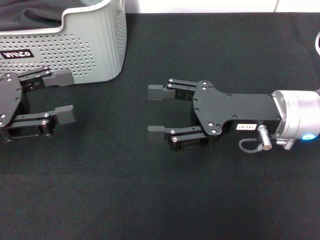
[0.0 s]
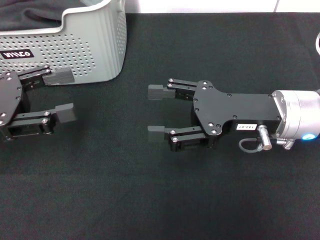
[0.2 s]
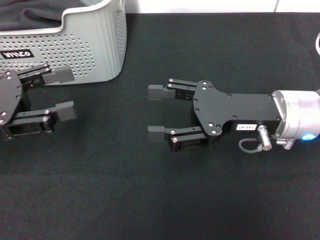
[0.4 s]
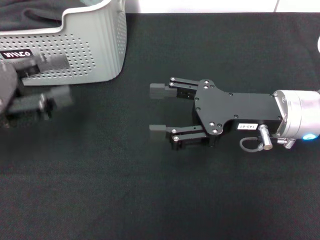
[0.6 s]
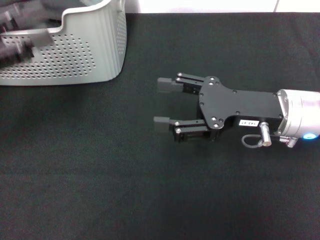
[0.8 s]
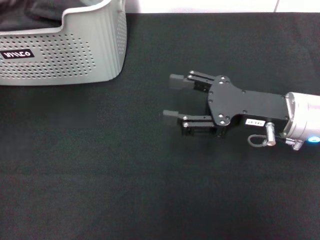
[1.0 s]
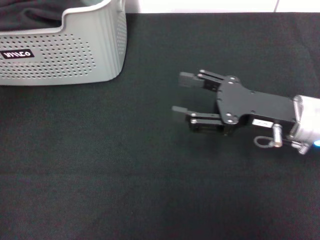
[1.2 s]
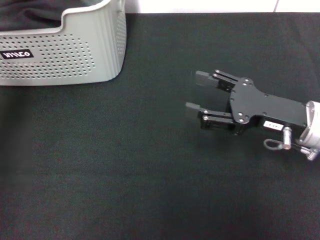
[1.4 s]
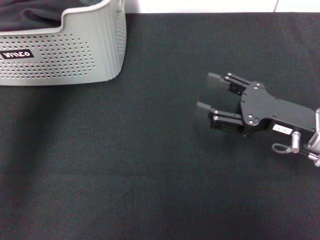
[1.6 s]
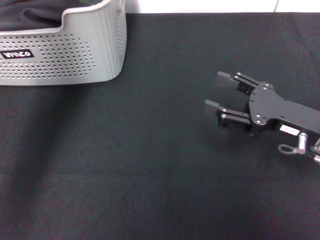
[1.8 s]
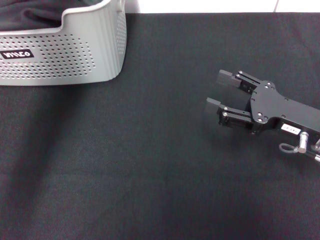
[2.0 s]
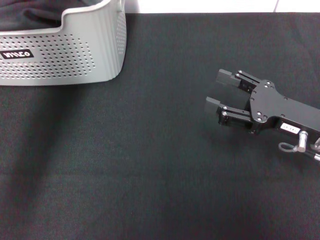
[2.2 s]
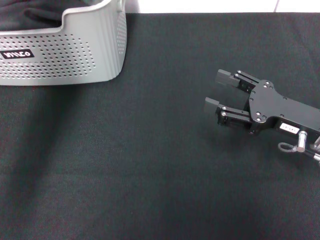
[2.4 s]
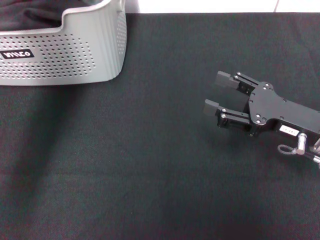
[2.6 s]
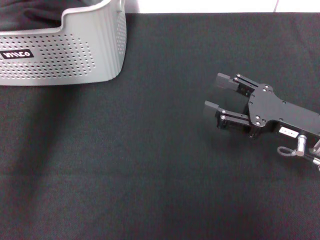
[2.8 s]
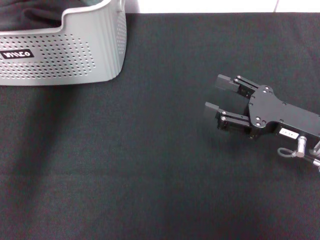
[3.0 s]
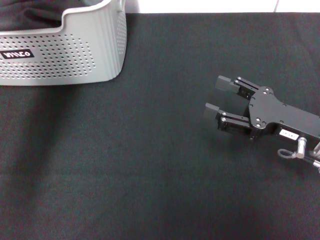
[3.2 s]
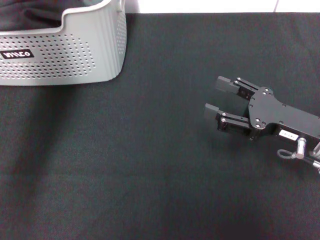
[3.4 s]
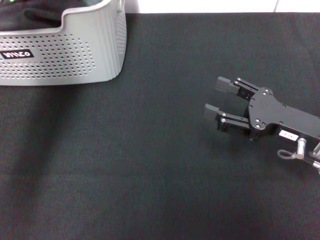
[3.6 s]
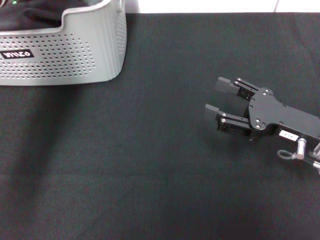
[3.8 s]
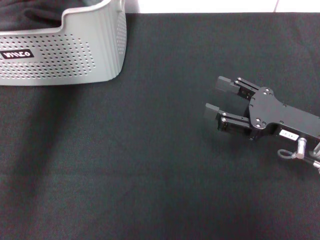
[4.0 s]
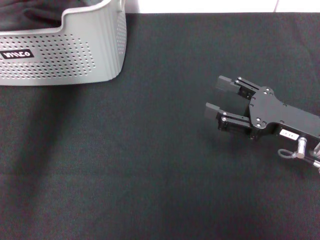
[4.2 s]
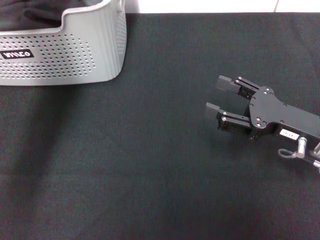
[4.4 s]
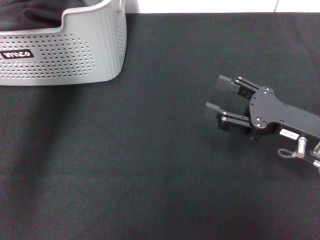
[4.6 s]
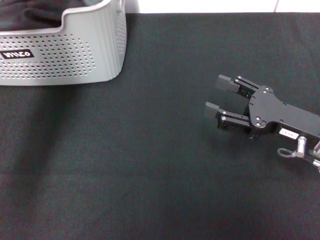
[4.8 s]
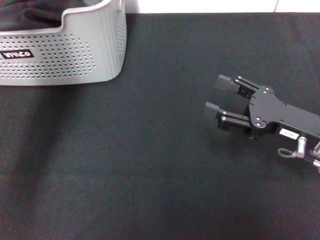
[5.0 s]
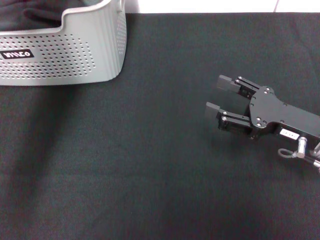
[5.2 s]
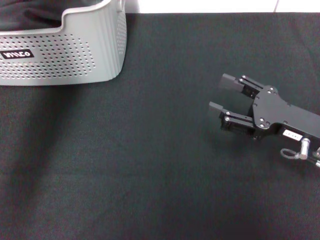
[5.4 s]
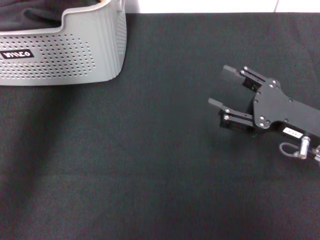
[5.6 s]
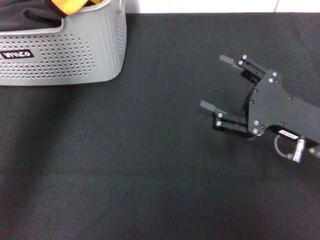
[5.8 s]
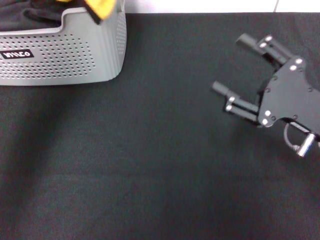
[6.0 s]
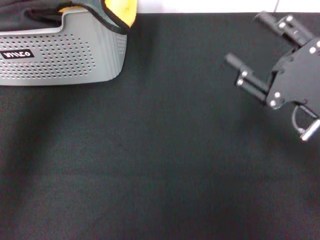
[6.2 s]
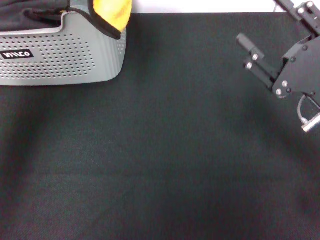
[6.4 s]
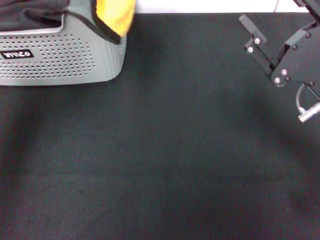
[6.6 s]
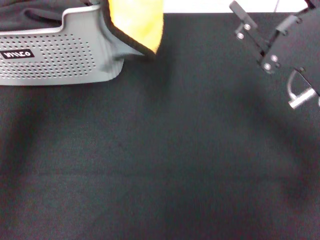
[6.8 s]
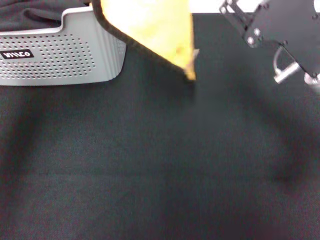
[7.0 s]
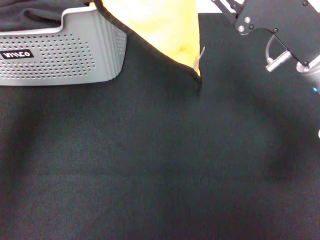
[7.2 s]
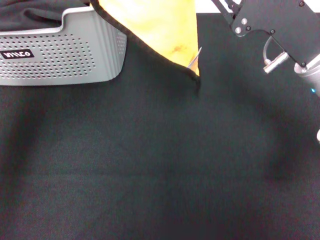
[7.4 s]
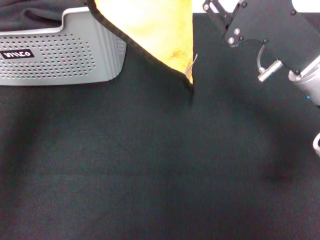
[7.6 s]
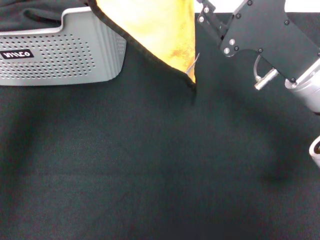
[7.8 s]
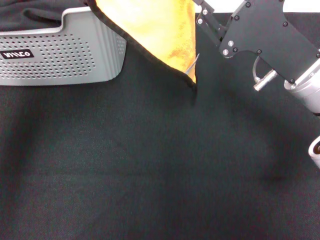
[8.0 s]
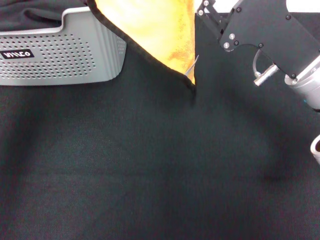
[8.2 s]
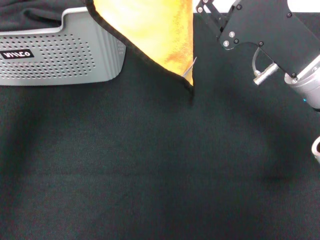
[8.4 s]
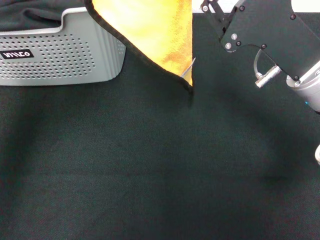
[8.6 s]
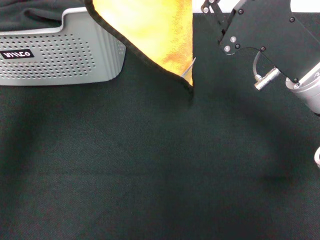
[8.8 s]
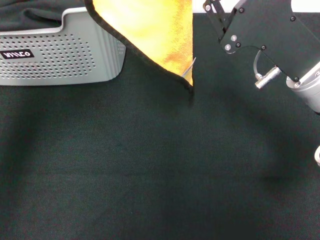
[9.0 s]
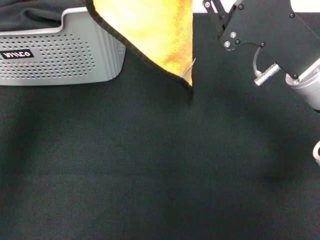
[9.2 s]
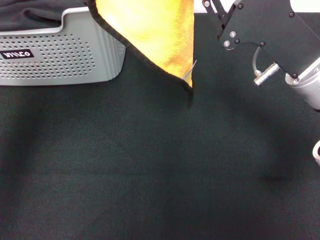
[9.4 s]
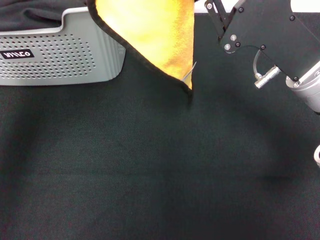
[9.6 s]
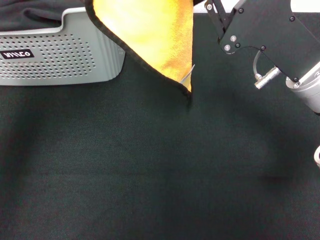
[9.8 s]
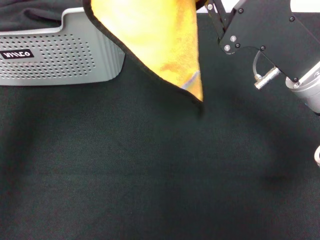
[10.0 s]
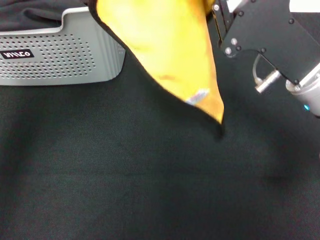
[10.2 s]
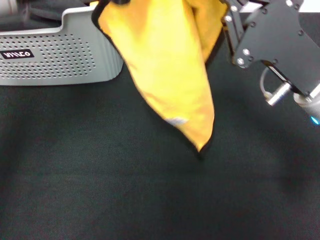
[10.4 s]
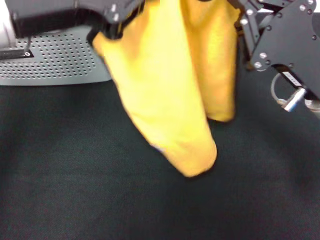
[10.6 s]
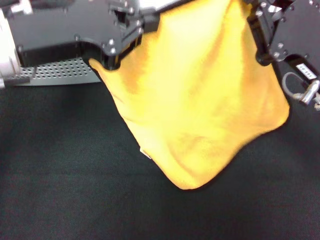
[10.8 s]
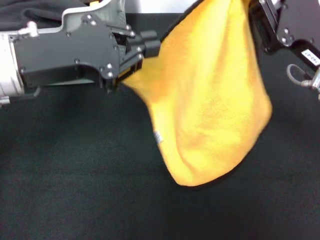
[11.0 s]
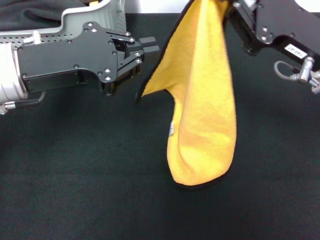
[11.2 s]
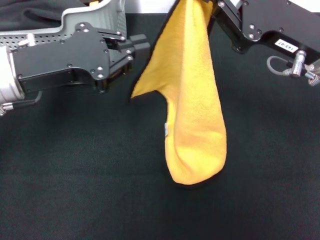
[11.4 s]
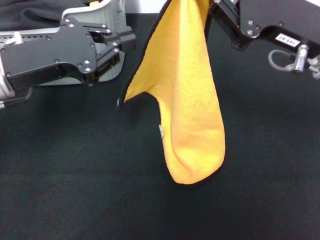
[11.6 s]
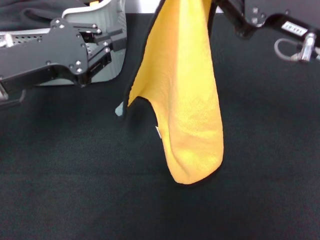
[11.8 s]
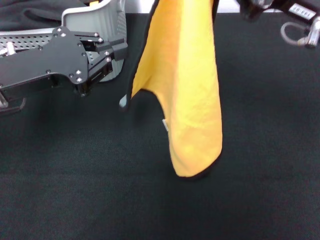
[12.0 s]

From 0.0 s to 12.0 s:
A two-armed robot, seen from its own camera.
Task of the whole recording: pick up the towel from the storage box and lay it flat on the black tablecloth.
Step, from 0.0 s to 5.0 s: Pick up a towel with the left gripper.
Step, from 5.4 s to 10.4 s: Spread the towel flat with the left gripper.
From 0.0 s to 1.6 s: The left gripper moves upward, to the right and forward, about 20 cm. The right gripper heads to the right, covering some 5 cm.
From 1.6 s to 3.0 s: The left gripper shifts by some 5 cm.
From 4.4 s to 6.0 s: The left gripper shifts approximately 15 cm upward and backward, and closes its fingers.
From 6.0 s to 7.6 s: The right gripper goes some 5 cm to the left and upward.
From 7.6 s to 9.0 s: Neither gripper changes place.
From 10.4 s to 12.0 s: The right gripper goes some 10 cm upward. The left gripper moves downward and to the left, about 15 cm.

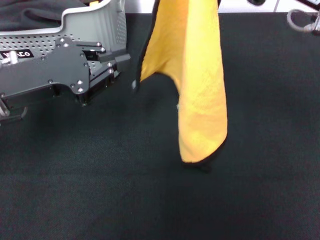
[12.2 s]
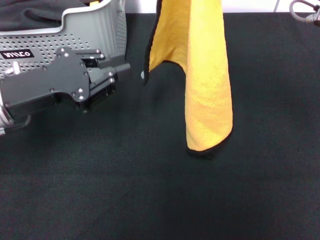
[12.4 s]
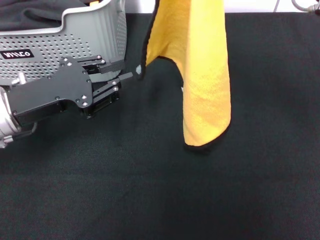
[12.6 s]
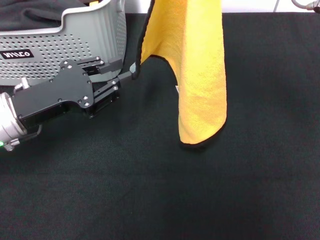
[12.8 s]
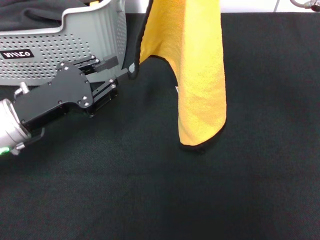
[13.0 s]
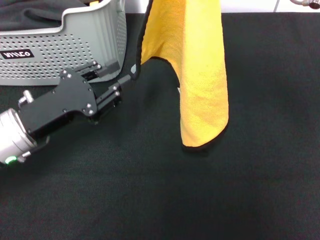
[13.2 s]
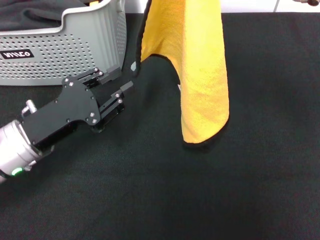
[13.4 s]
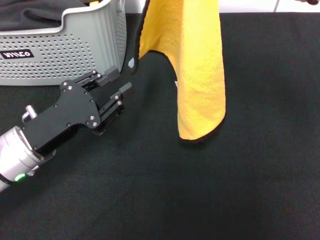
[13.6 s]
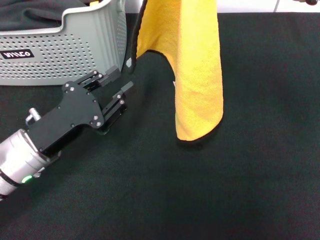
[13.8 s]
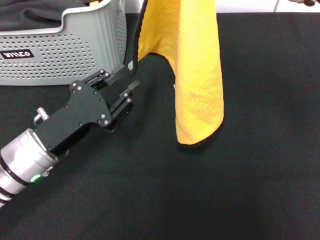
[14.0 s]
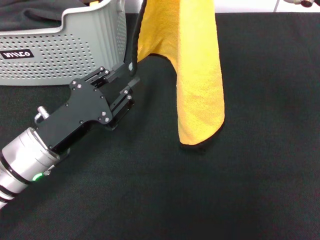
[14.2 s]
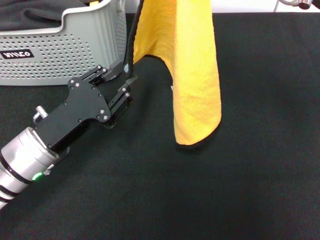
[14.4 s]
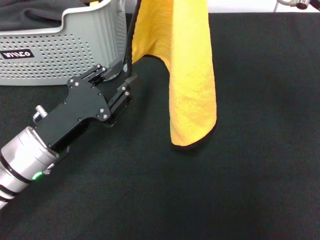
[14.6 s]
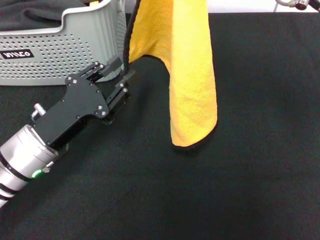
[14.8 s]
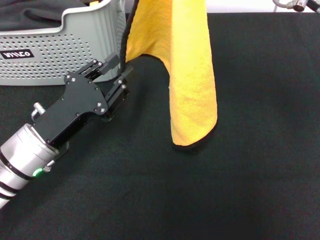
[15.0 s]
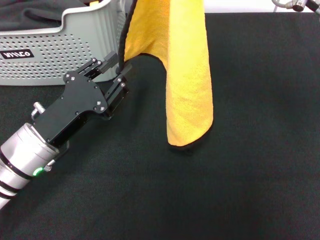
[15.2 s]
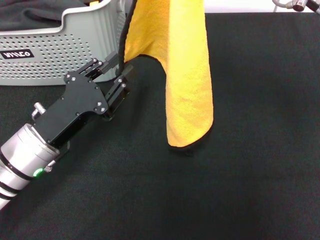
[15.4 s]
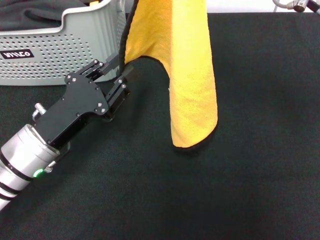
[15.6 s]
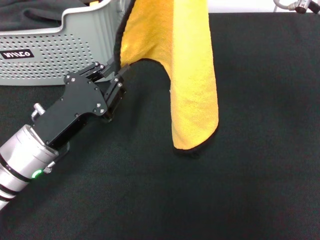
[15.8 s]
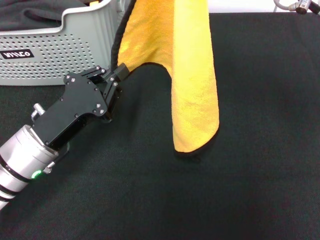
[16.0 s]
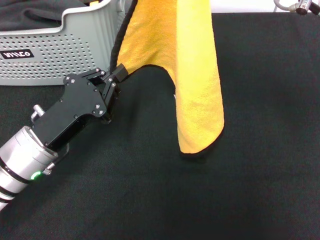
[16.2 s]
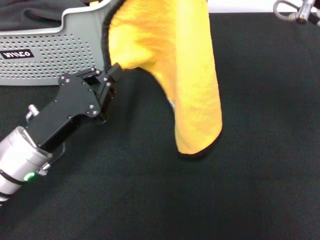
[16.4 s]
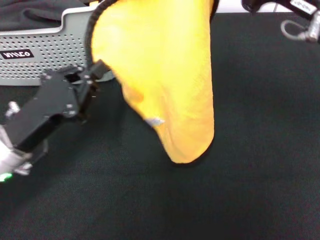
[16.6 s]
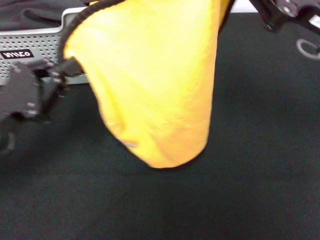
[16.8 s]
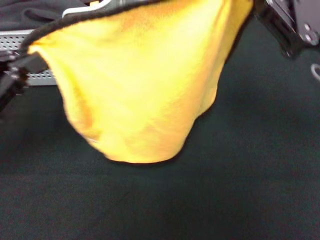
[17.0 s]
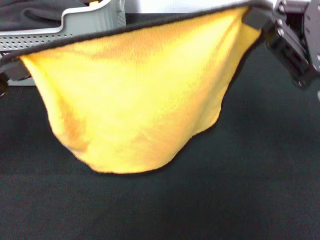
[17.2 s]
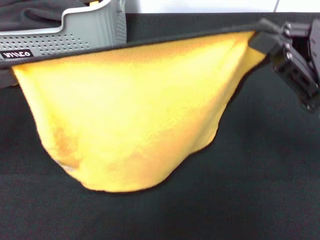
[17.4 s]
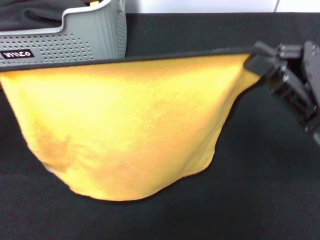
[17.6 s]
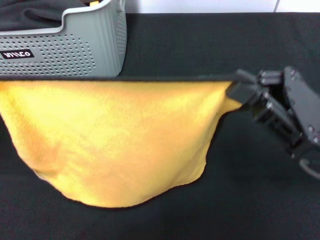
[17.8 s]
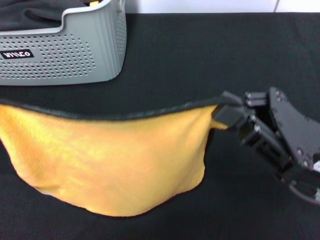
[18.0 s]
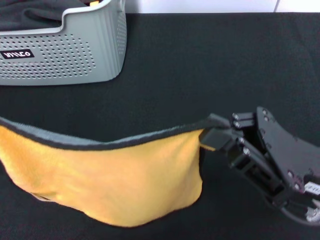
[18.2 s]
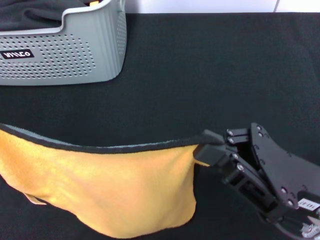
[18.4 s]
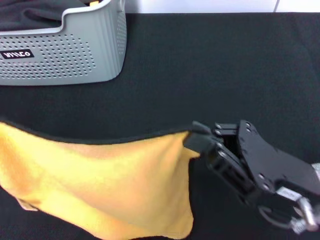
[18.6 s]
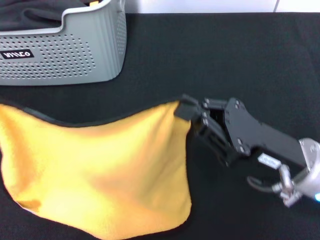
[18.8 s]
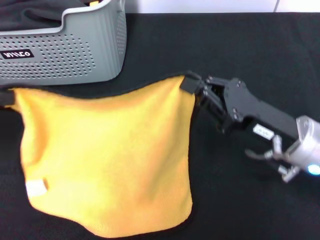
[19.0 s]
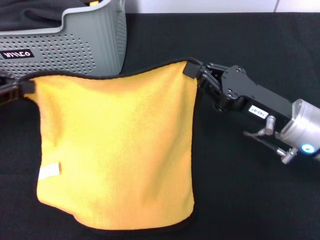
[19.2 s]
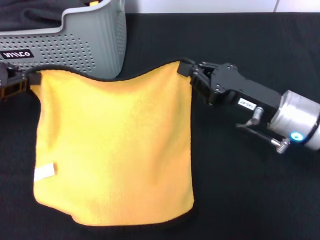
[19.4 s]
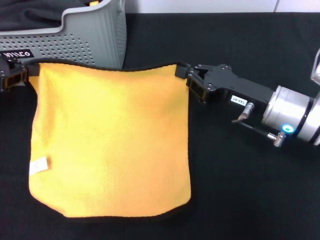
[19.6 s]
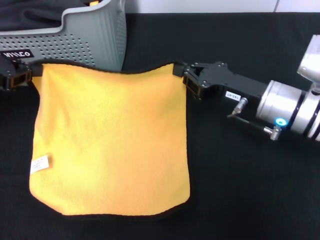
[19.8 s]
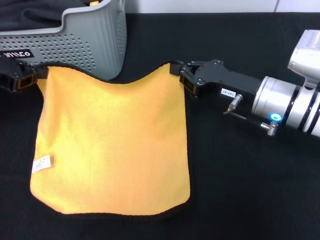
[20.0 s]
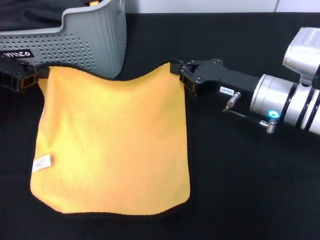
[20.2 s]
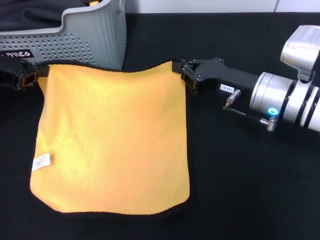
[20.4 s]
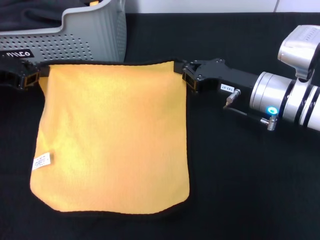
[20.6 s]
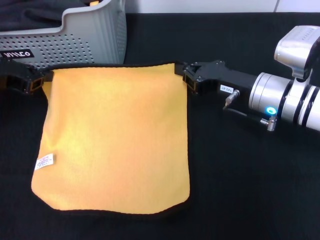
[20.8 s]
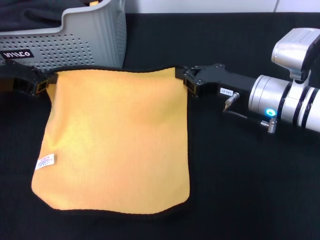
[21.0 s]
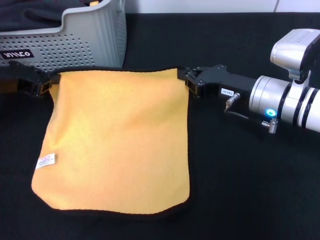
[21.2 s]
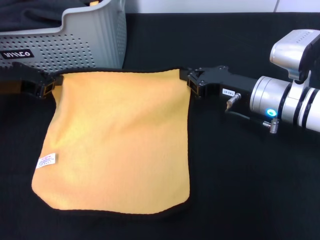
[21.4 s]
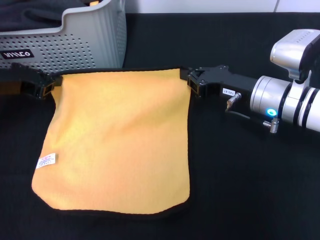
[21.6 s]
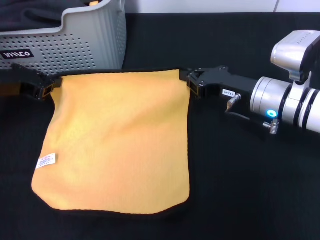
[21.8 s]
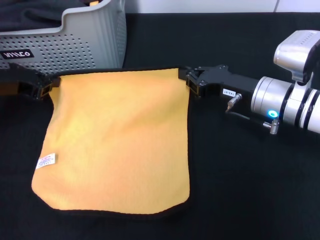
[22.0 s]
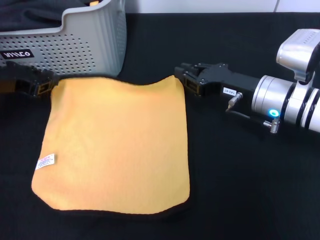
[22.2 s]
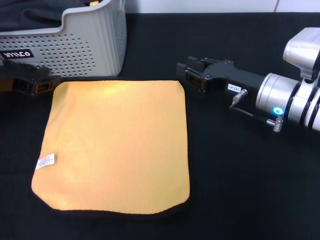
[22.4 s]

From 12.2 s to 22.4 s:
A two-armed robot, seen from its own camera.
Task of the whole recording: pick up the towel from the storage box and lay it flat on the black tablecloth.
Step, from 12.2 s to 22.2 s: Spread the towel flat with the right gripper.
From 12.2 s to 13.6 s: The left gripper travels downward by about 10 cm, and opens up.
From 13.6 s to 15.2 s: The grippers stay close to where they were, moving slightly.
From 15.2 s to 16.6 s: The left gripper closes its fingers.
From 16.6 s to 18.0 s: The left gripper is displaced upward and to the left by roughly 20 cm; the right gripper travels backward and downward by approximately 15 cm.
From 18.0 s to 19.4 s: The right gripper heads forward, covering roughly 10 cm, while the left gripper goes approximately 10 cm forward and downward.
From 19.4 s to 21.0 s: The right gripper goes roughly 5 cm forward, while the left gripper moves some 5 cm.
From 21.0 s to 22.4 s: Both grippers stay put.
